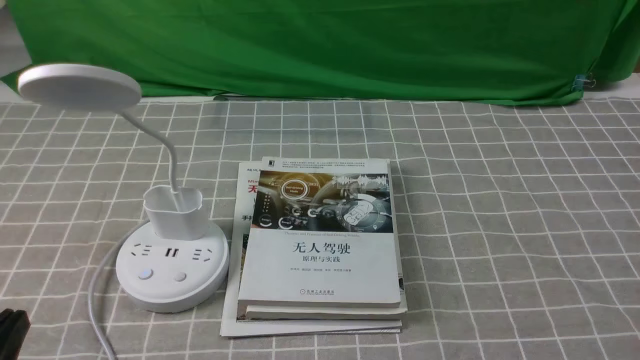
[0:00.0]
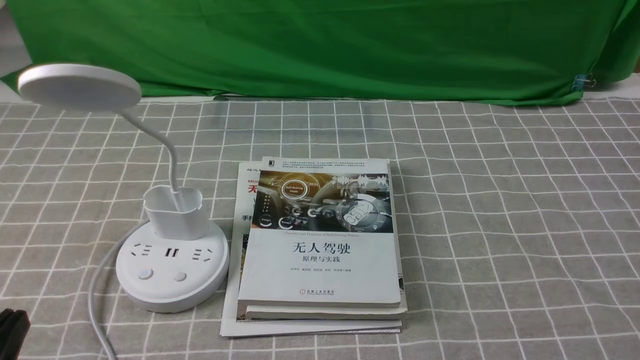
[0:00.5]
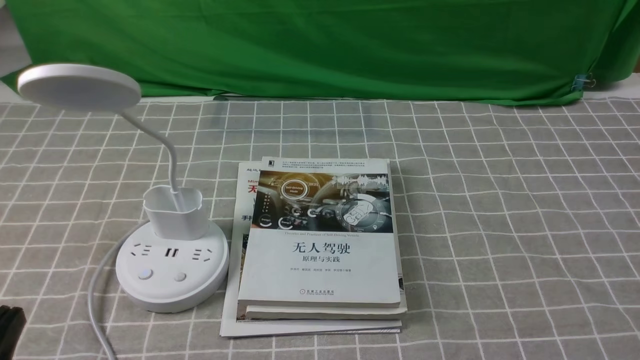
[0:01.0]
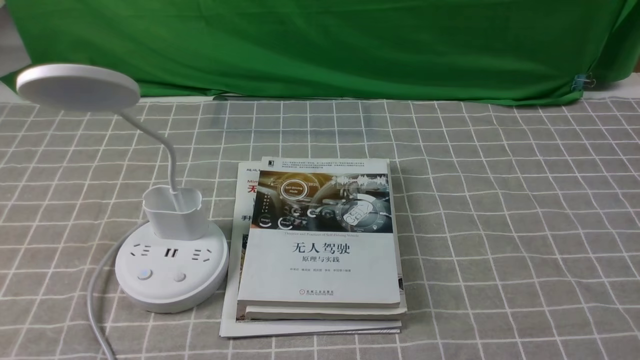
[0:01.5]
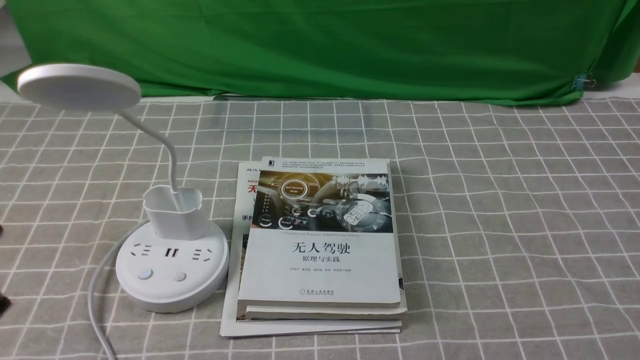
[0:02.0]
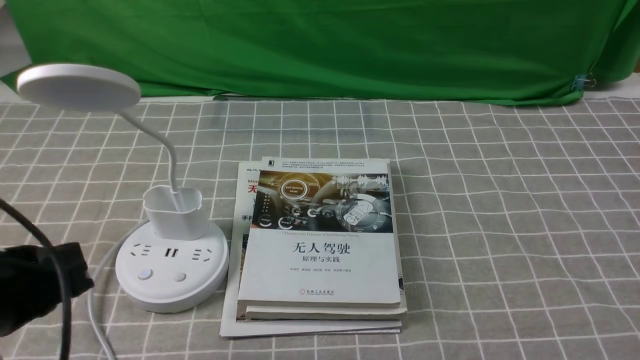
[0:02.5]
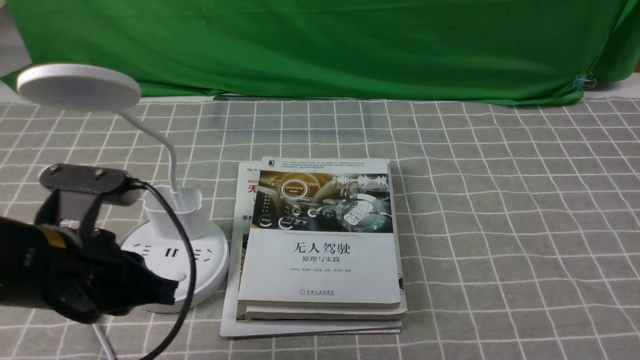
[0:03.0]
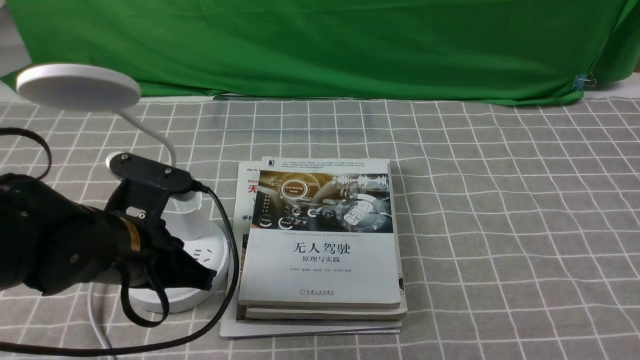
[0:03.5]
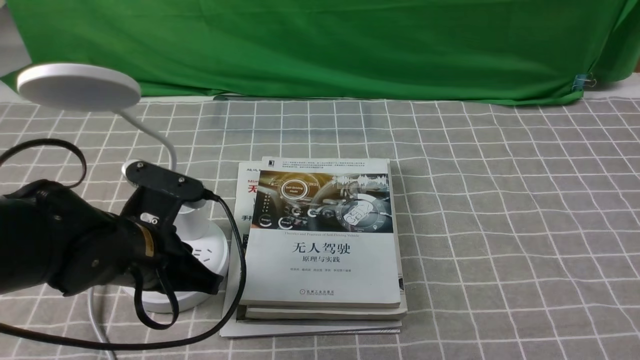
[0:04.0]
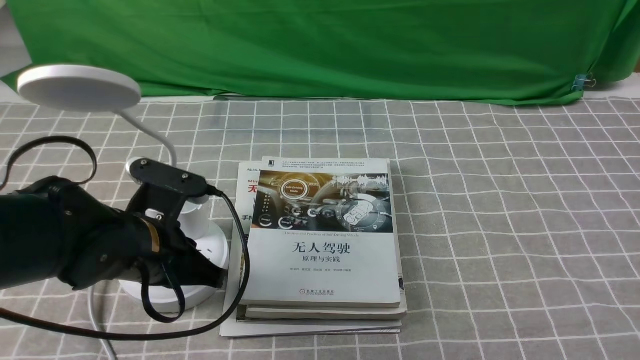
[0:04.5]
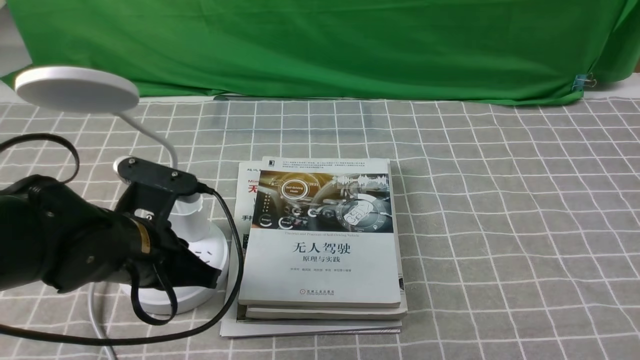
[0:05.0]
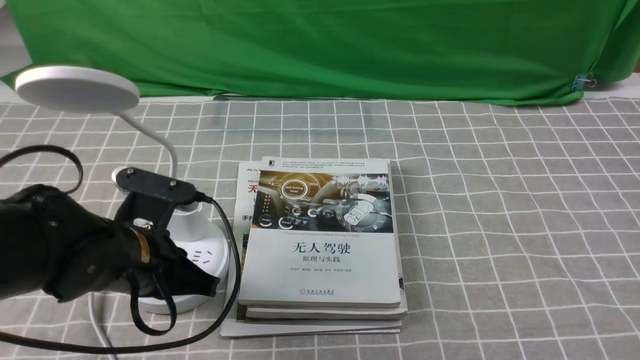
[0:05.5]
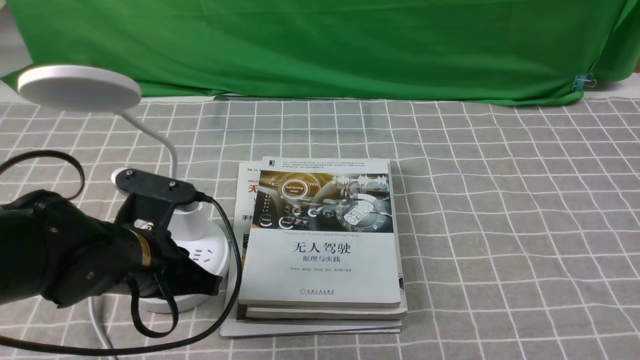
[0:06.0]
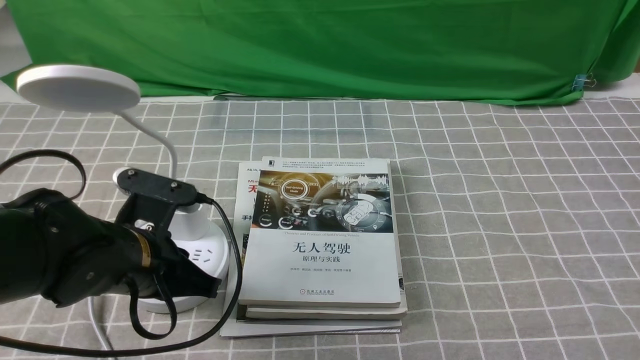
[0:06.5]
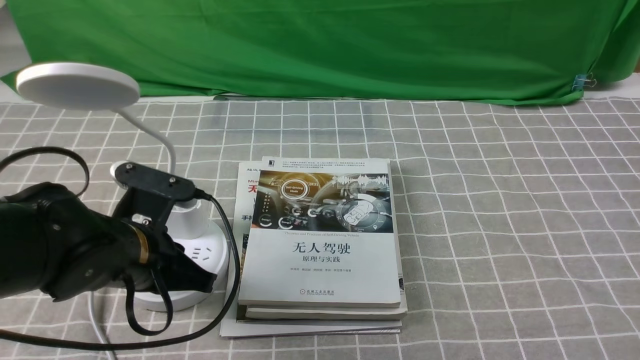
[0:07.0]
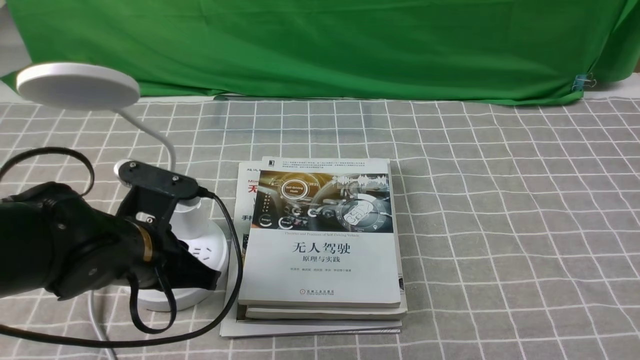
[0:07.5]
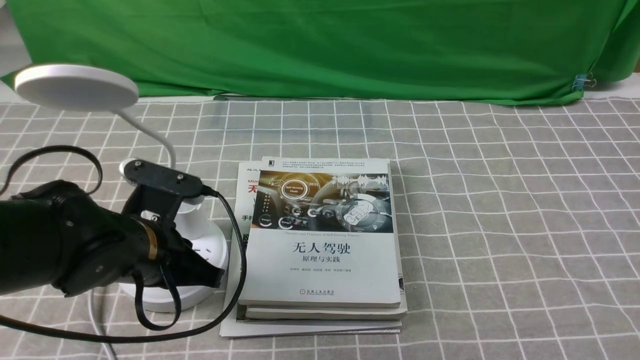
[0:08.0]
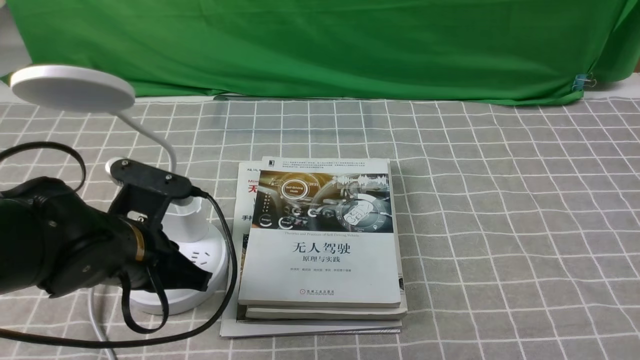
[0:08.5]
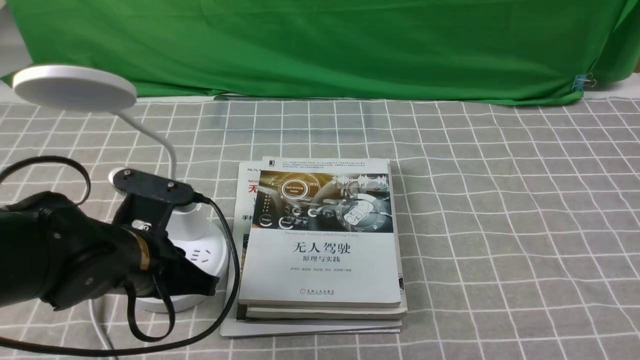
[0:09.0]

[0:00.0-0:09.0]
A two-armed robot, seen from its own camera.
0:02.0 to 0:04.5: The left gripper goes approximately 25 cm forward, downward and to the right.
0:04.5 to 0:09.0: Both grippers stay about where they are.

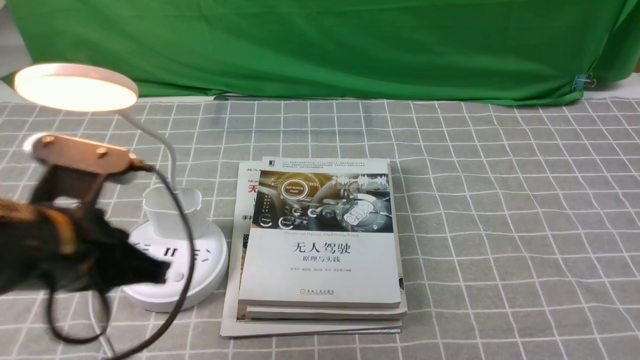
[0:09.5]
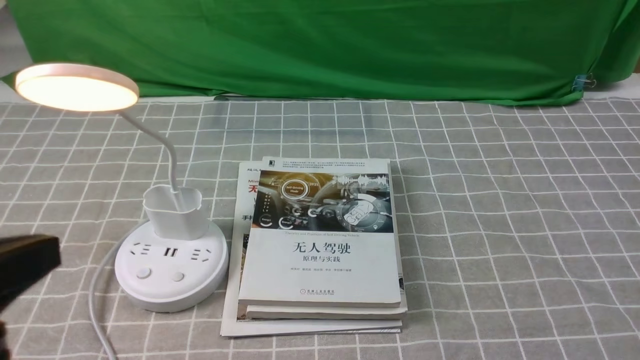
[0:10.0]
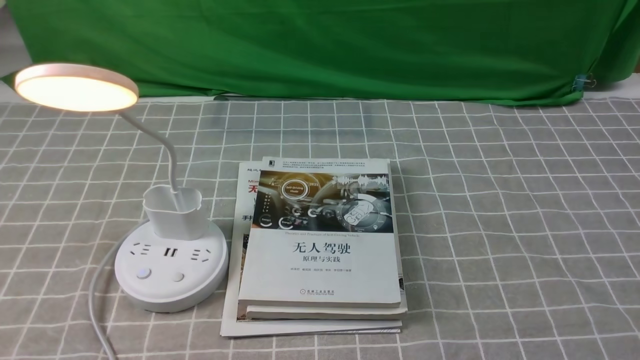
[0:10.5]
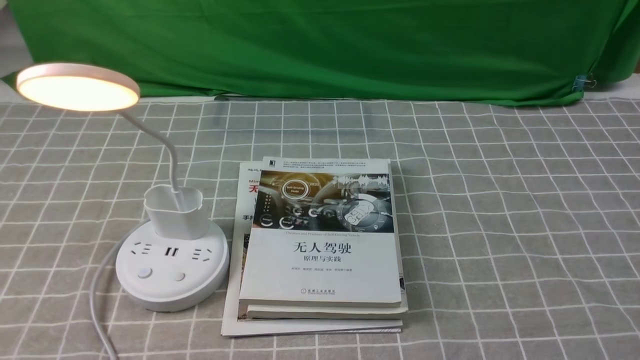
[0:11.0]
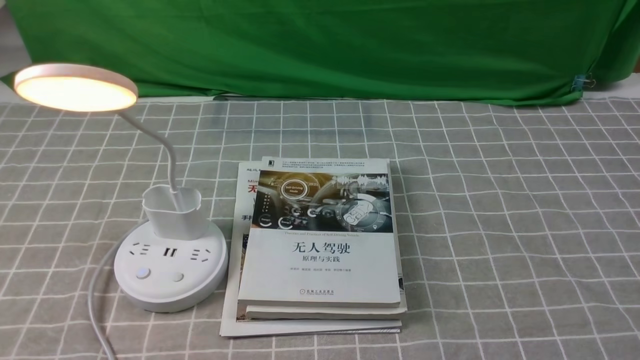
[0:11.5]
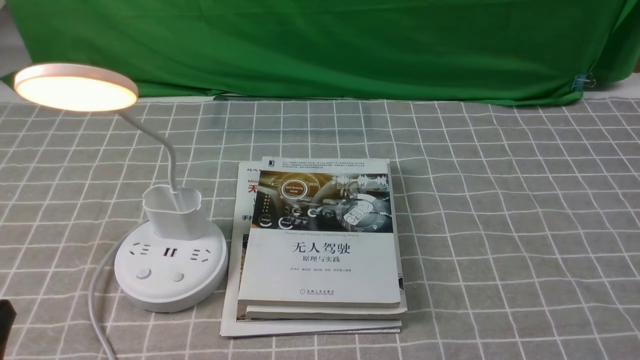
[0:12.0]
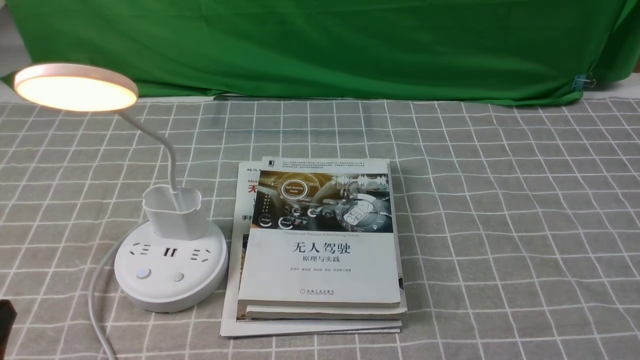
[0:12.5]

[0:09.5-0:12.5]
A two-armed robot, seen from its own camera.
0:09.5 to 0:11.0: The left gripper goes roughly 15 cm backward.
0:11.0 to 0:12.5: The left gripper is displaced downward by roughly 10 cm.
